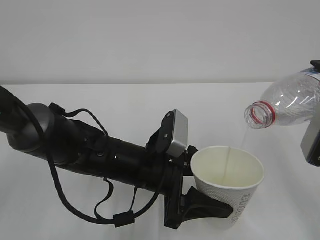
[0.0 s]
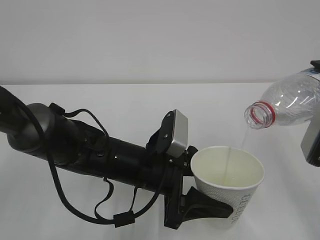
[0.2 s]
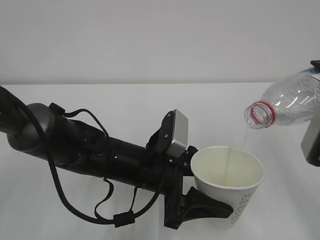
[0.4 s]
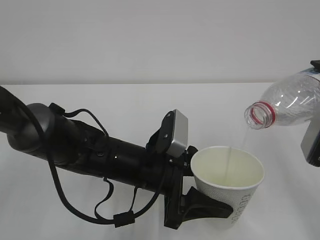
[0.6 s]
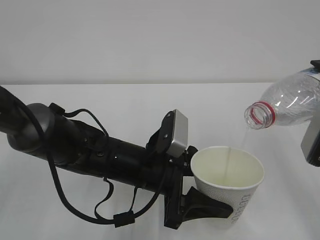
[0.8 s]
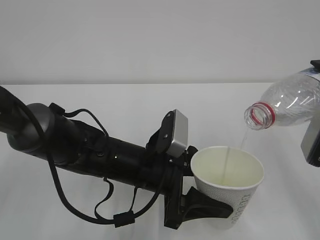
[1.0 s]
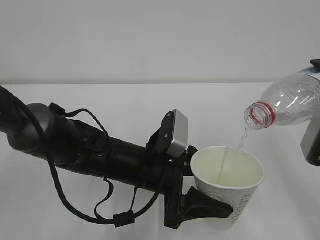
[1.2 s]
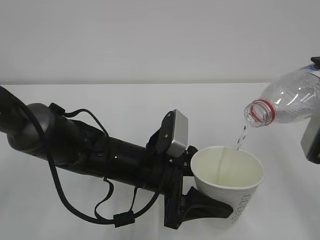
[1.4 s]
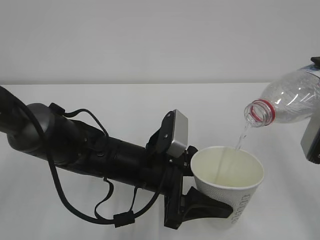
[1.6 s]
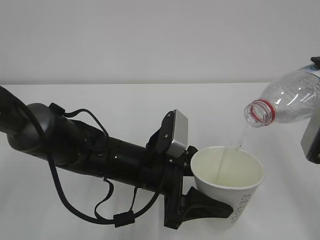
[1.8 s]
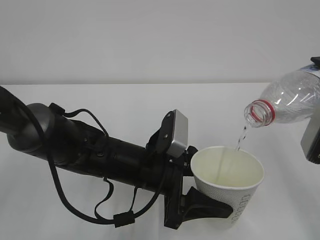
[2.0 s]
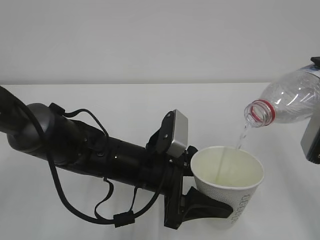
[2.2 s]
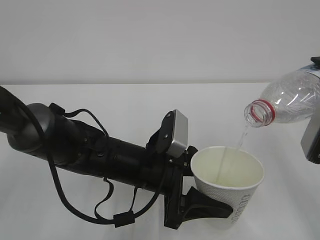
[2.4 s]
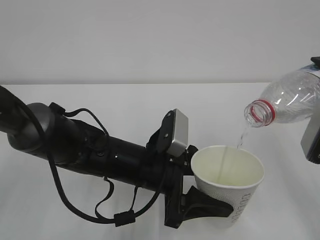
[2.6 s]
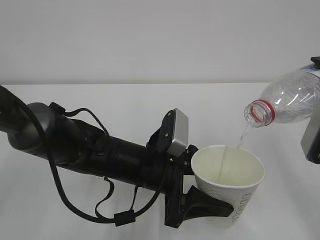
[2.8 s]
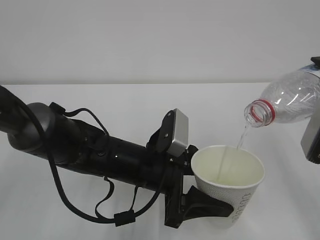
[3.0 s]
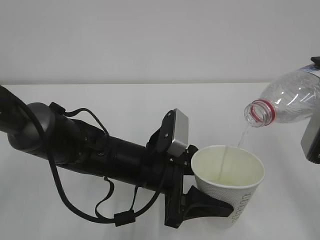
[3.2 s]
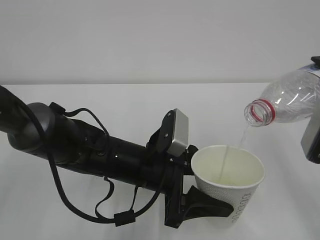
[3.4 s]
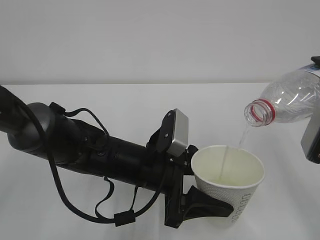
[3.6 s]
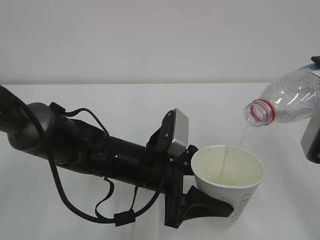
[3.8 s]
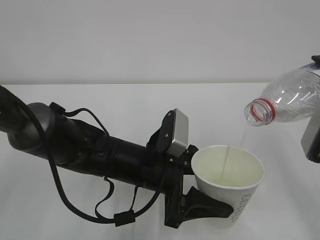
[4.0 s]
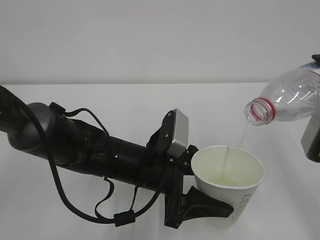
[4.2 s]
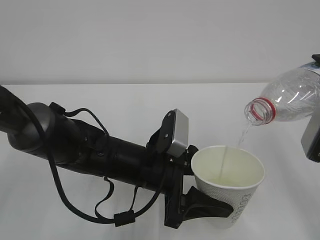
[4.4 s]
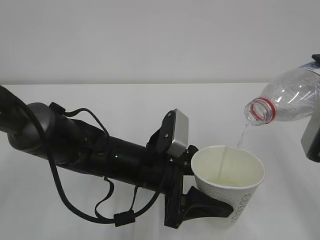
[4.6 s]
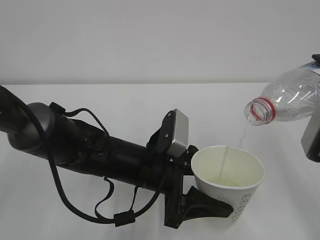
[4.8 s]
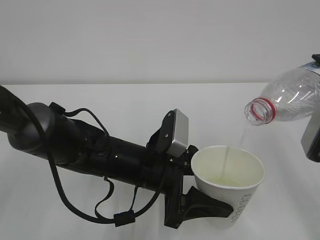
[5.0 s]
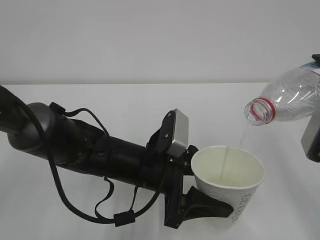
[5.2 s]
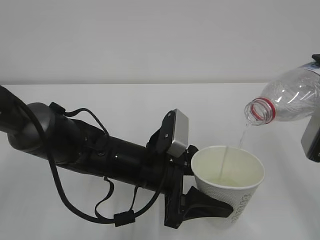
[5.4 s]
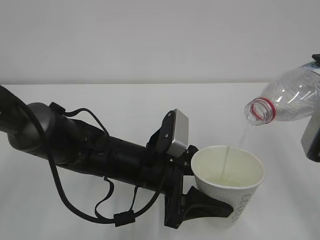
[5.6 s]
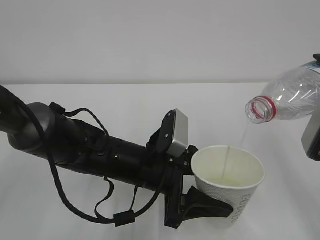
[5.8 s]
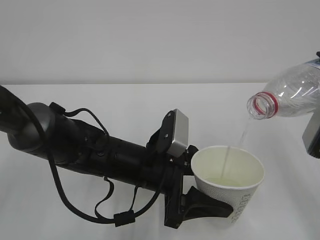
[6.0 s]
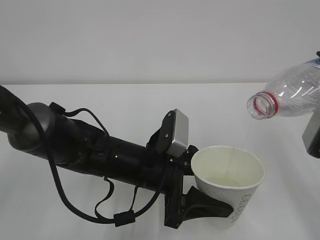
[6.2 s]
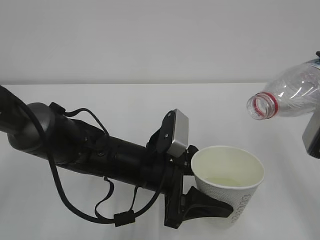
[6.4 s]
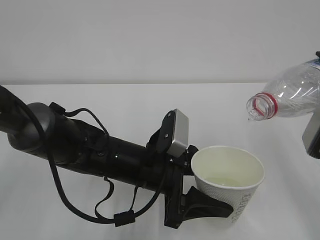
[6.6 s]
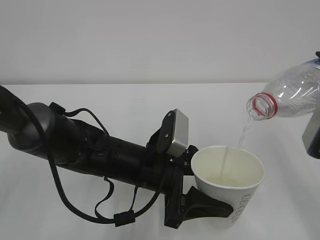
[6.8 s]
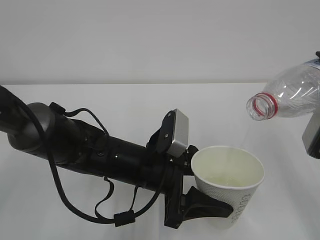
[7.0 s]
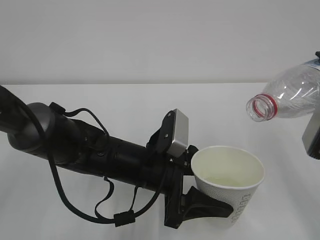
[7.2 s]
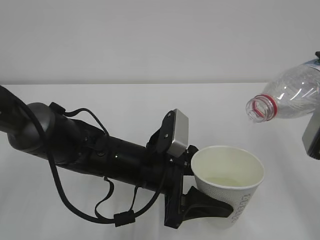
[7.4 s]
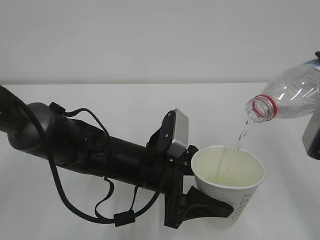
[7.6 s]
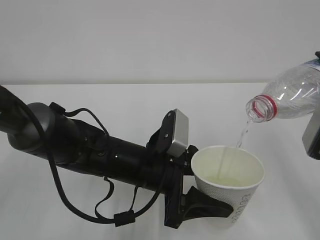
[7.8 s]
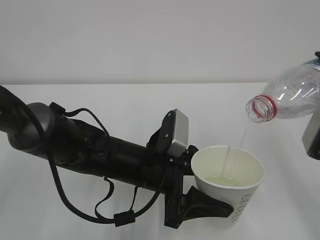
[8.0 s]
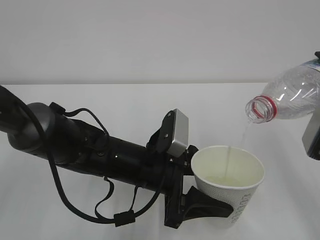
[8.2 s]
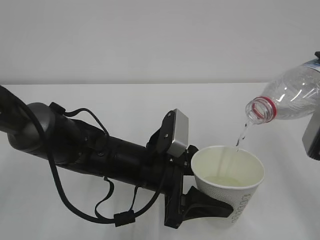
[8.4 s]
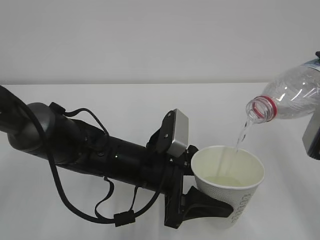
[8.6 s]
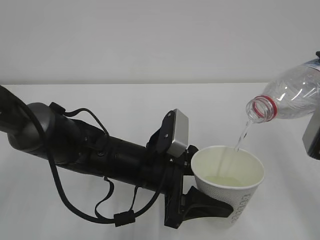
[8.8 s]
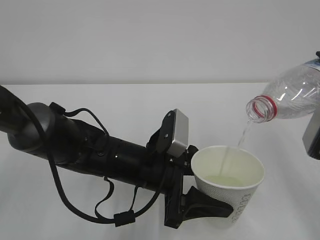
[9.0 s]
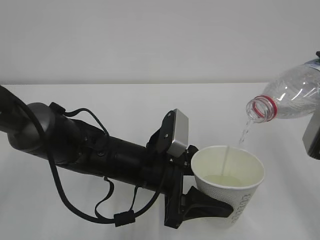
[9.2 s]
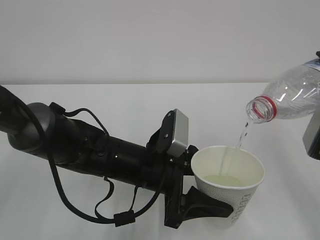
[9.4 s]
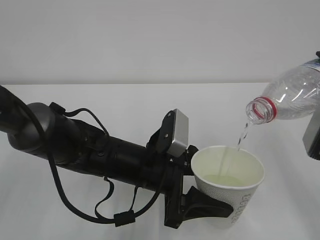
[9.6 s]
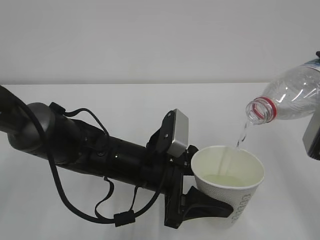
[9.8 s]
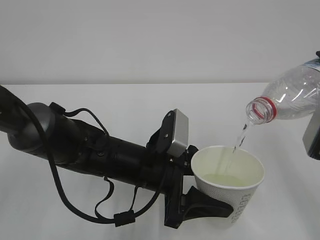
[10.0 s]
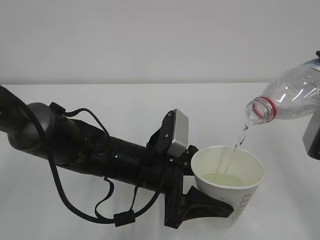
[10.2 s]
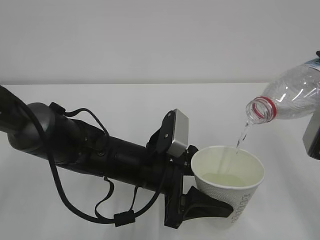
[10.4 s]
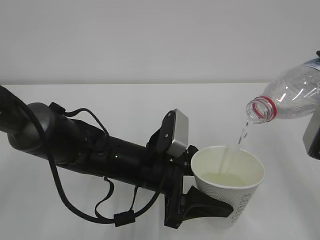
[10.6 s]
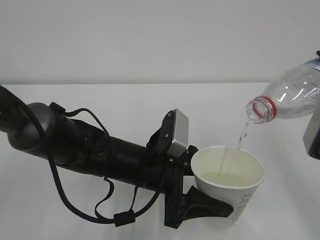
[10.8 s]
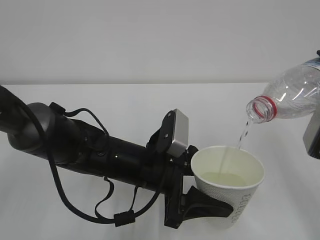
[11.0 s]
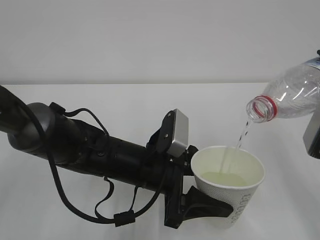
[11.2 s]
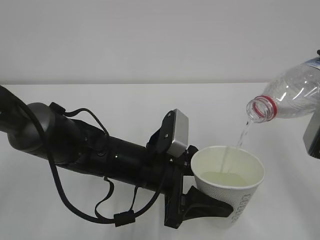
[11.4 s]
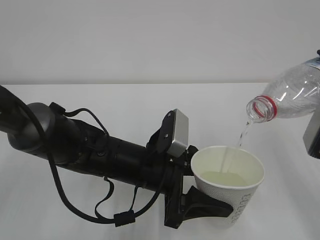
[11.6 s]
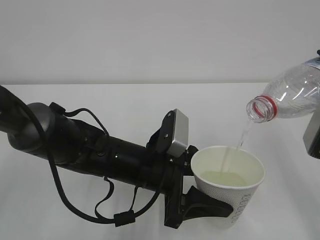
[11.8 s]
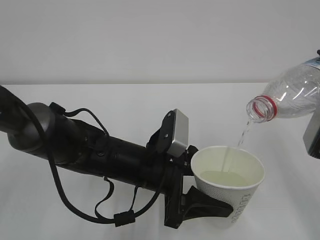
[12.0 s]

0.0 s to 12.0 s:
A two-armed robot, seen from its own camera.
0.0 to 10.4 s: Neither gripper changes place.
10.4 to 12.0 s: Both grippers stay about where they are.

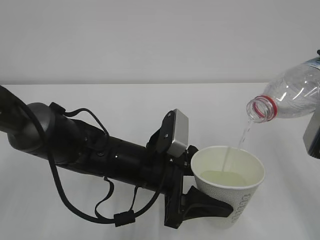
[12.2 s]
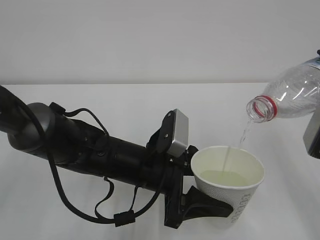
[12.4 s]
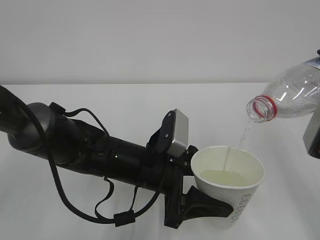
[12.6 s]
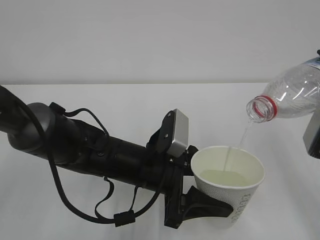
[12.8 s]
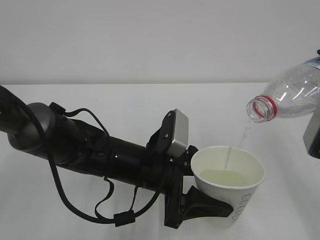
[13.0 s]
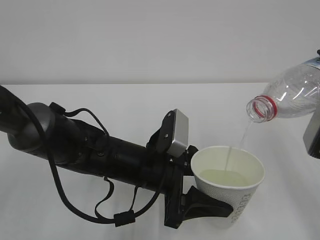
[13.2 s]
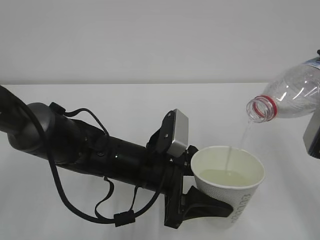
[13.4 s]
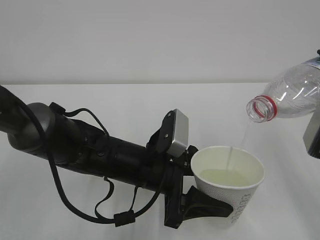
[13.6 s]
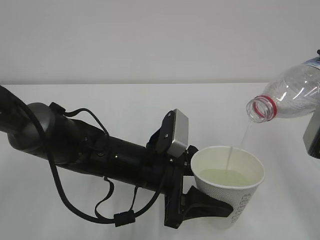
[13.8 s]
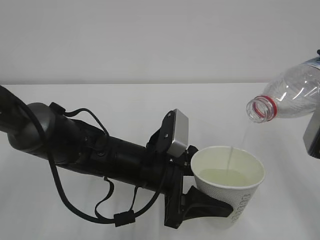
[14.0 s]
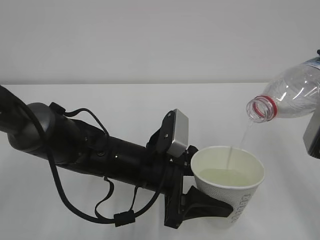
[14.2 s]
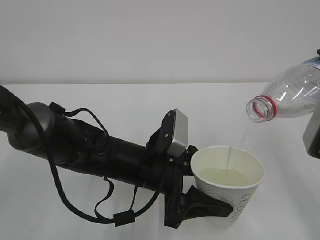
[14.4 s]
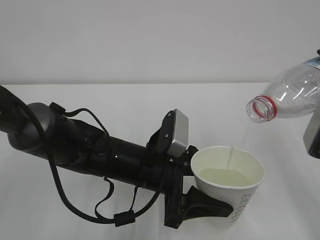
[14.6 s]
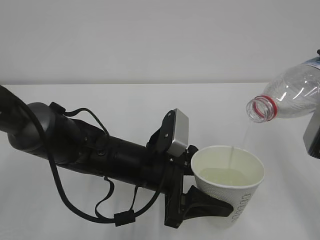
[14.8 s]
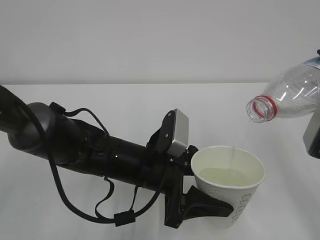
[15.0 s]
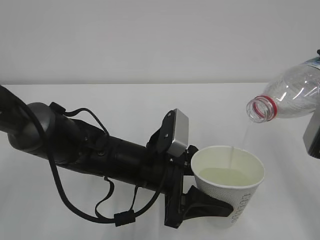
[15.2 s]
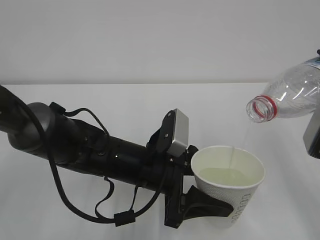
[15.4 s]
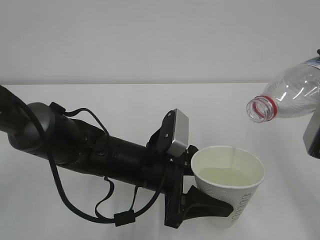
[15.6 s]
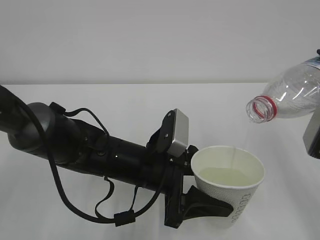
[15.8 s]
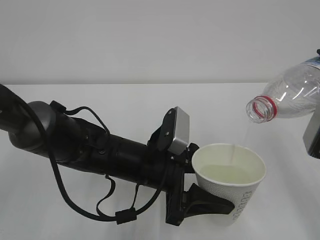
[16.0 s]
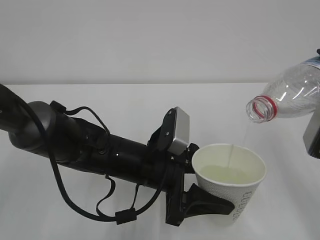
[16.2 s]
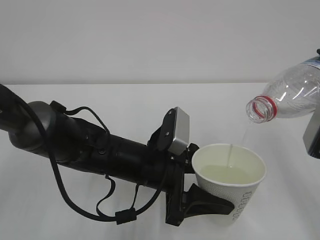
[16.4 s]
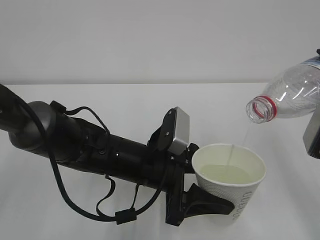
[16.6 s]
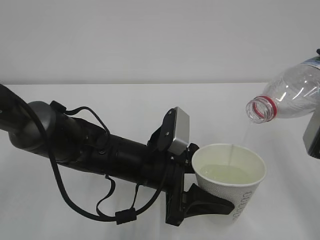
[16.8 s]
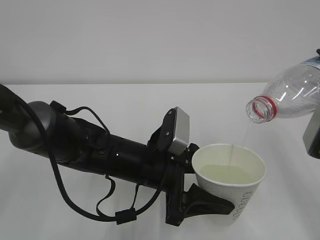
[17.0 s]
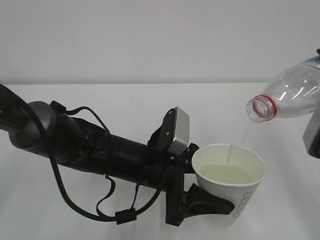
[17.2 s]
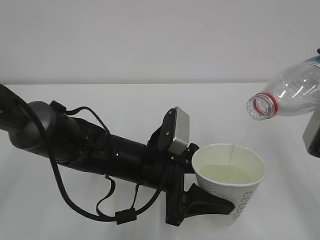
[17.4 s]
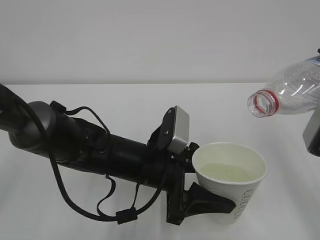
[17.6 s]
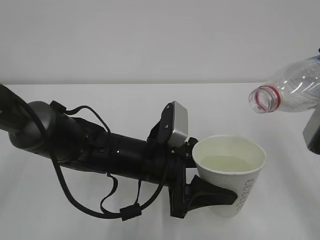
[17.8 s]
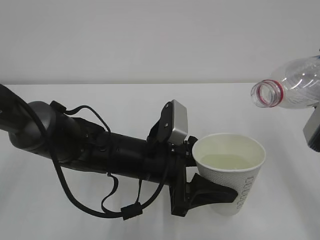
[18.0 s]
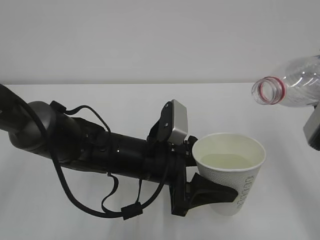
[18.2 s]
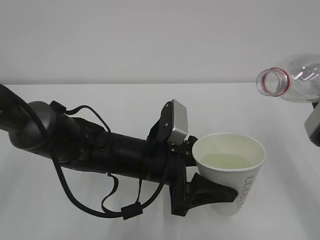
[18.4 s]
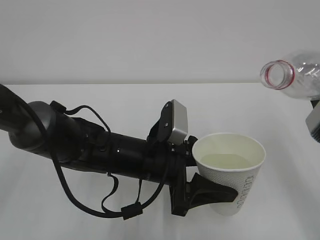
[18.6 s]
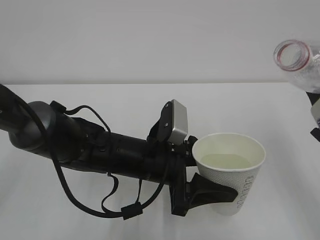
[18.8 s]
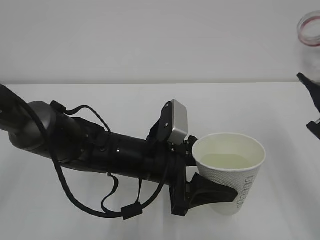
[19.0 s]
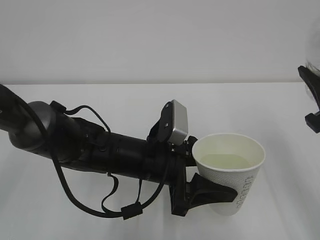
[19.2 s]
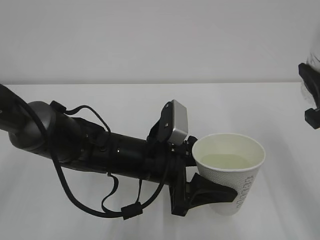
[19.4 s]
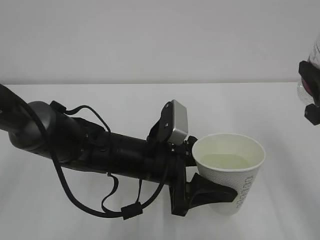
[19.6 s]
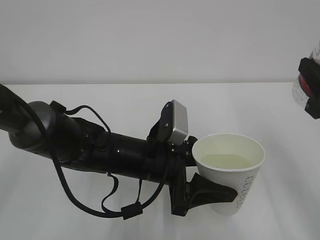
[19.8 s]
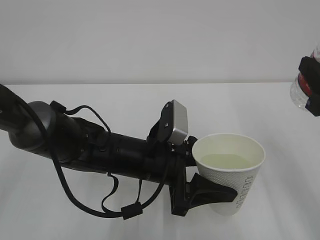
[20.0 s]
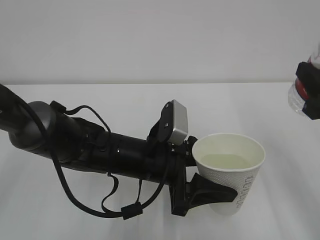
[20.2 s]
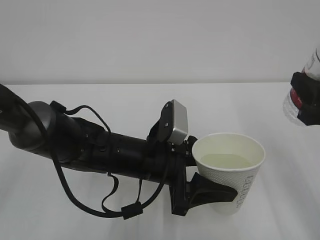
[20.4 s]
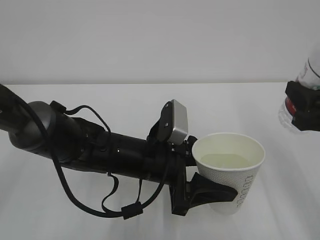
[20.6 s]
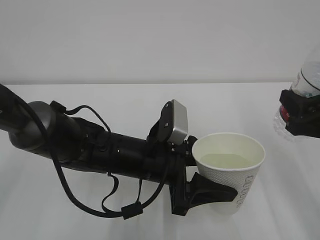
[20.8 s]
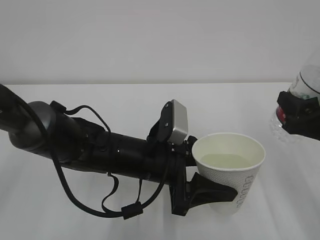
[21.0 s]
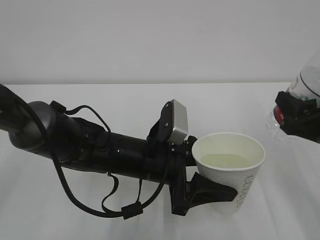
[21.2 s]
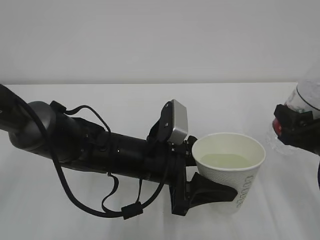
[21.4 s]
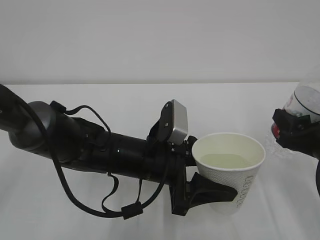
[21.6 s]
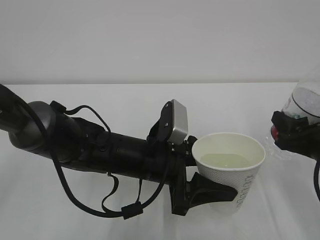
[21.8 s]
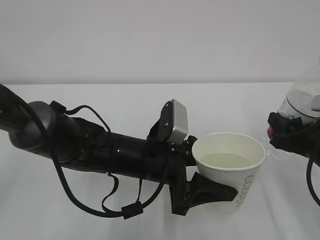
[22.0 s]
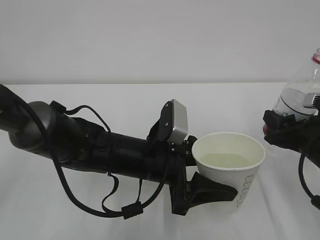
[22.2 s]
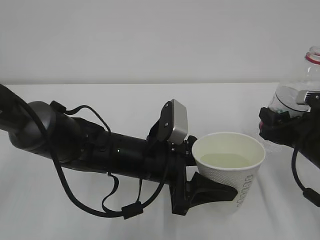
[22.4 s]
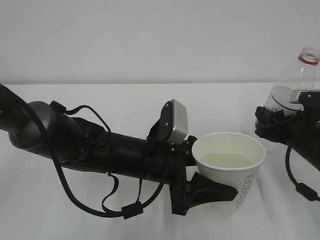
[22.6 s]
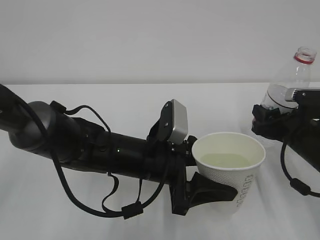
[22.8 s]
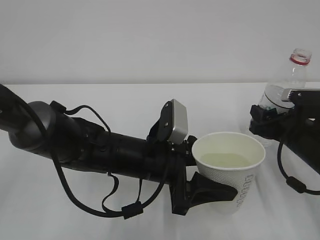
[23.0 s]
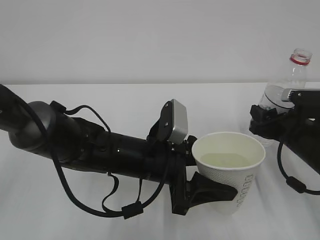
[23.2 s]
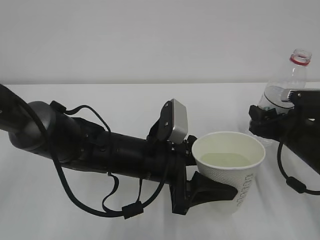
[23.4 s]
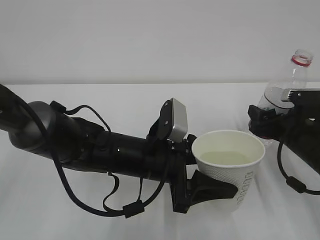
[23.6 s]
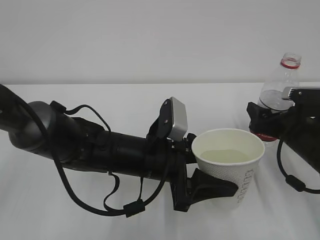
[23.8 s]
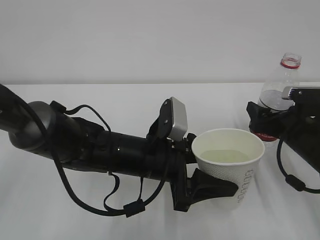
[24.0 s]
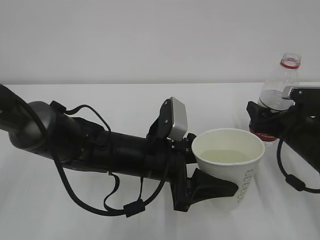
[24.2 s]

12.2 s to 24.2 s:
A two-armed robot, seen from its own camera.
12.2 to 16.6 s: Both grippers stay about where they are.
16.6 to 18.2 s: The grippers move only a little.
19.8 to 21.2 s: The right gripper goes about 5 cm downward.
21.2 to 22.6 s: The right gripper moves downward and forward, approximately 10 cm.
22.6 to 24.2 s: The right gripper opens its fingers.
